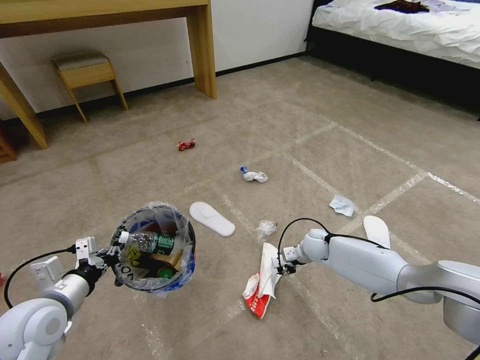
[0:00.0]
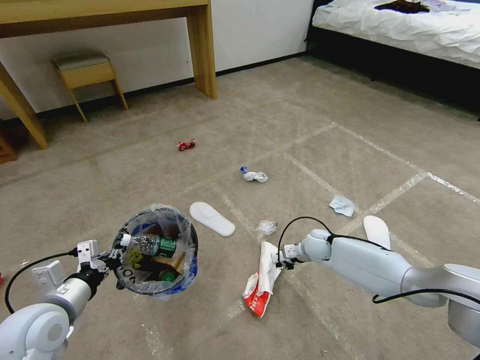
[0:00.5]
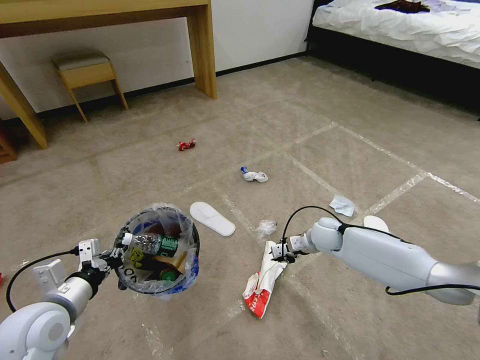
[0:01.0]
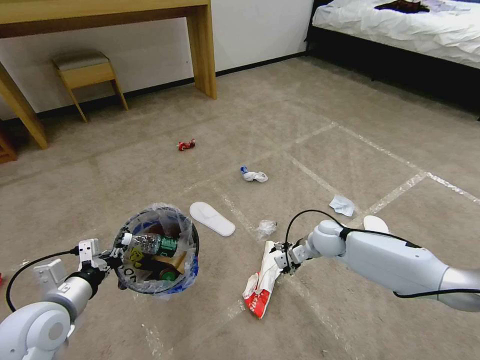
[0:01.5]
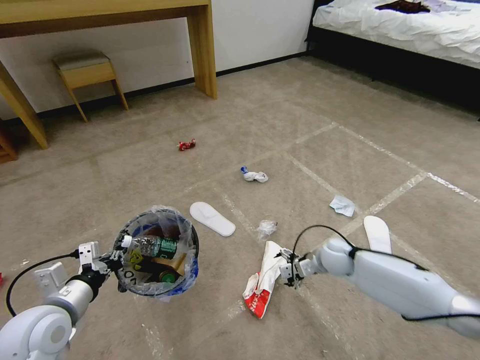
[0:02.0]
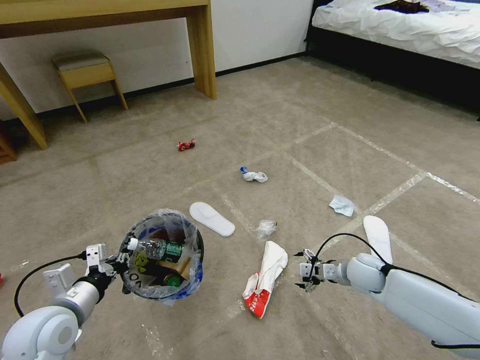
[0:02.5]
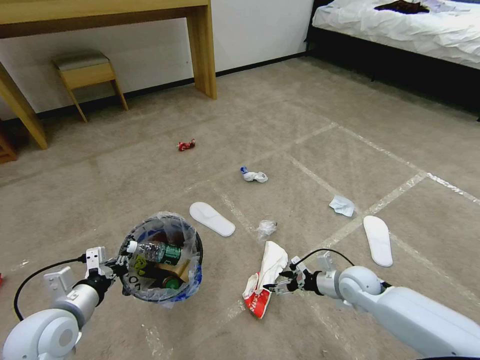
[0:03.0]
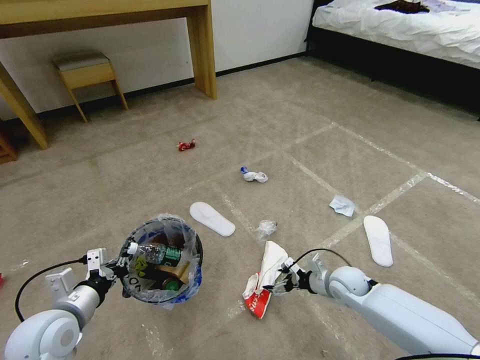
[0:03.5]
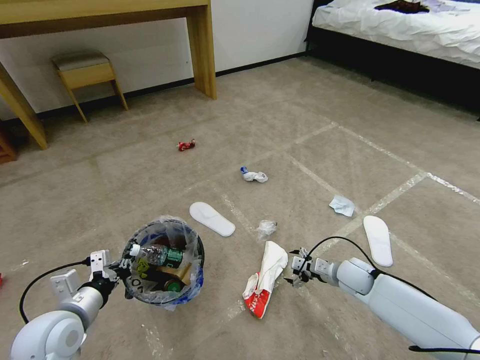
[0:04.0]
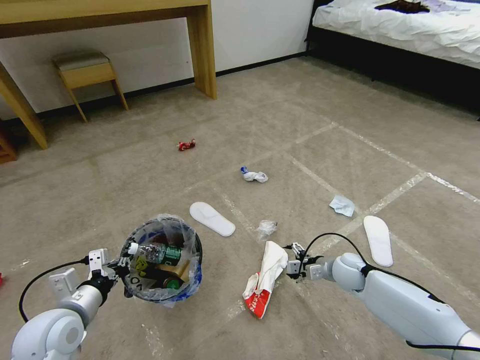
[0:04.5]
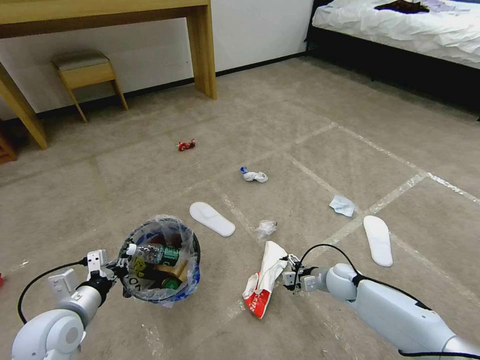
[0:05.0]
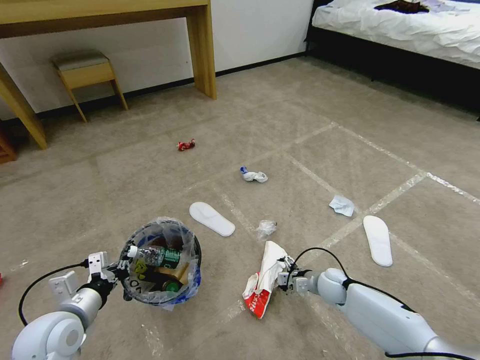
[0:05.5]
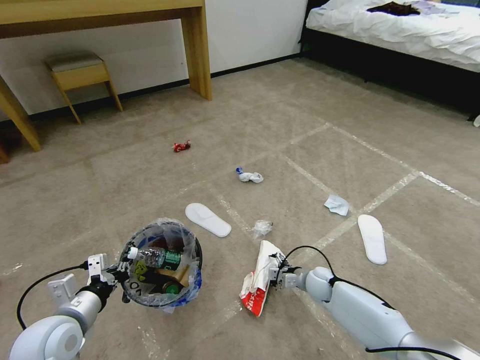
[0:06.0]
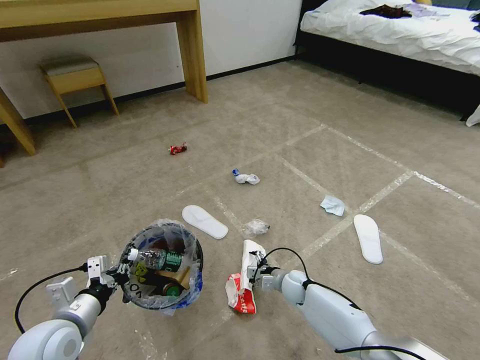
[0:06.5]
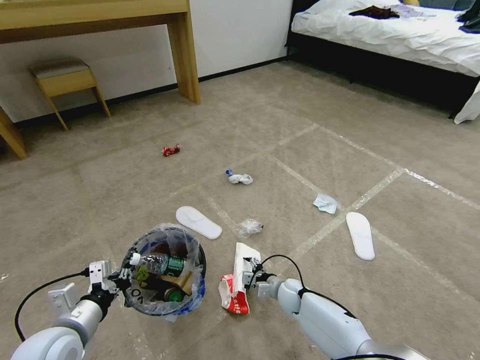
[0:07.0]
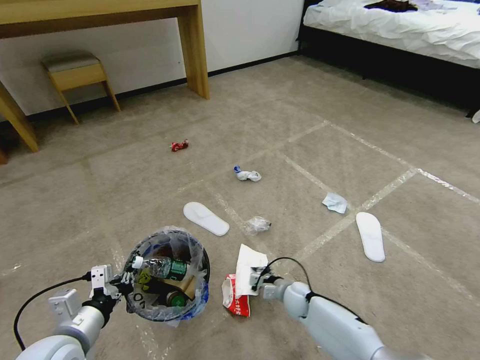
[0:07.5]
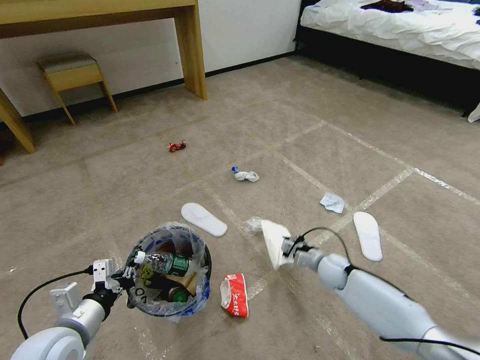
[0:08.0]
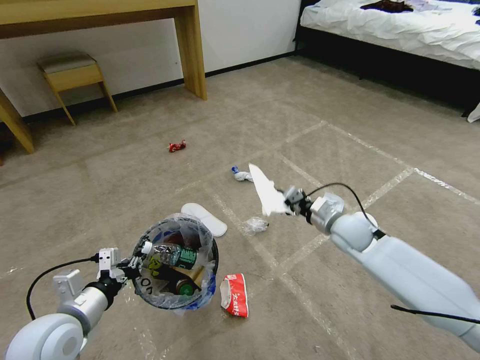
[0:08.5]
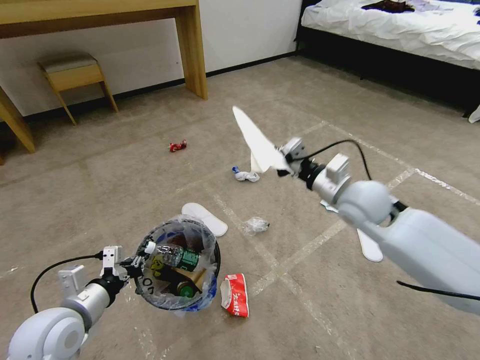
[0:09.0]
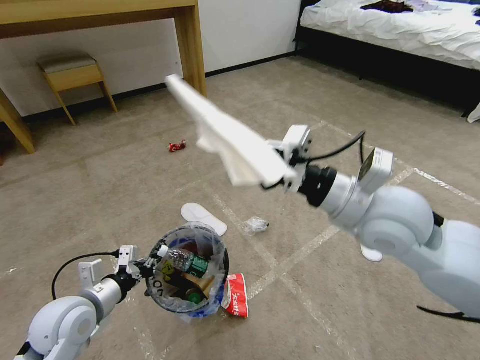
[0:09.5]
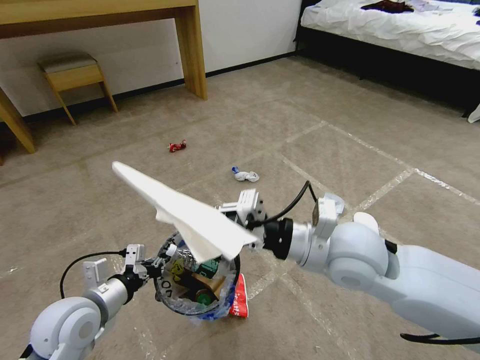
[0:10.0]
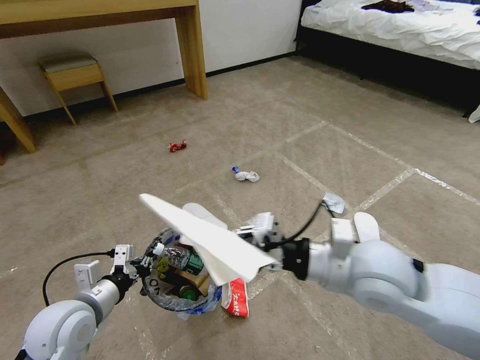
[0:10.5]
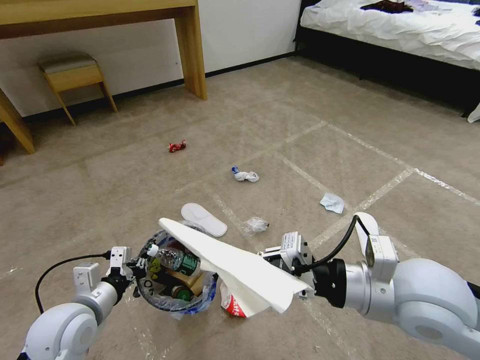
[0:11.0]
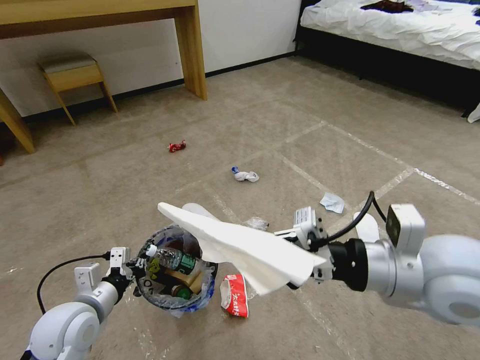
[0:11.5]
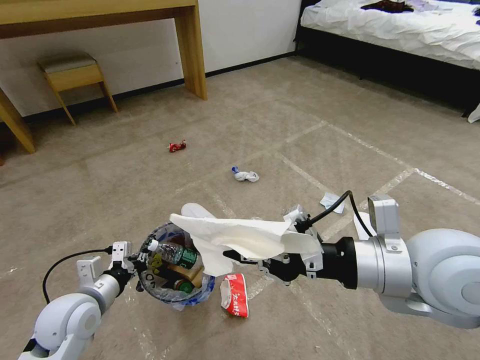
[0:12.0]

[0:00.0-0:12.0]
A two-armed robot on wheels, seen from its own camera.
Task of the whole recording: Pick up the trash bin and place the garbage on the floor into it.
0:00.0 to 0:02.0: The right gripper heads backward, covering some 5 cm, and opens up.
0:02.0 to 0:04.0: The right gripper shifts by roughly 5 cm.
0:04.0 to 0:06.0: The right gripper goes some 10 cm downward and to the left.
0:06.0 to 0:08.0: The right gripper goes to the left and returns, about 10 cm each way, and closes.
0:08.0 to 0:10.0: The right gripper moves upward, roughly 35 cm, while the left gripper changes place by some 5 cm.
0:10.0 to 0:12.0: The right gripper is displaced to the right, upward and backward by approximately 10 cm.

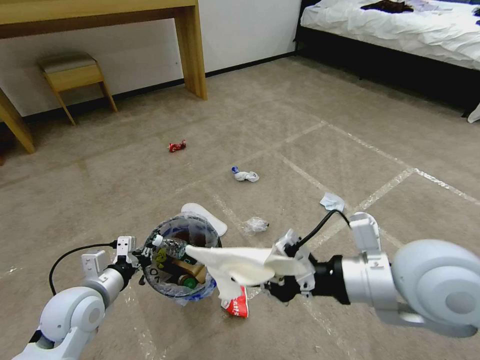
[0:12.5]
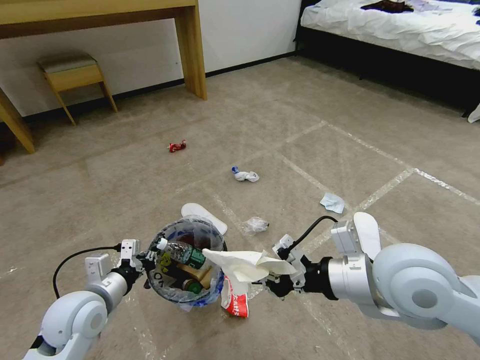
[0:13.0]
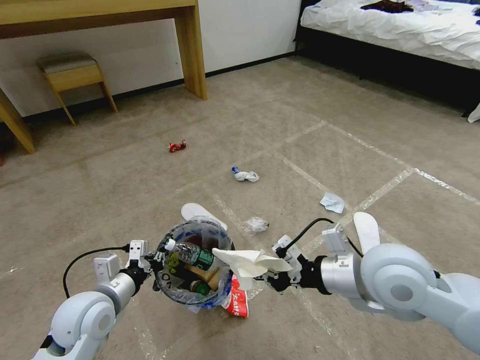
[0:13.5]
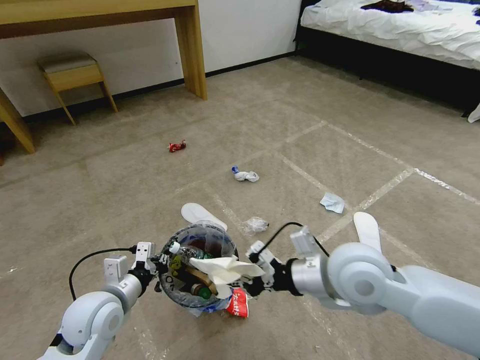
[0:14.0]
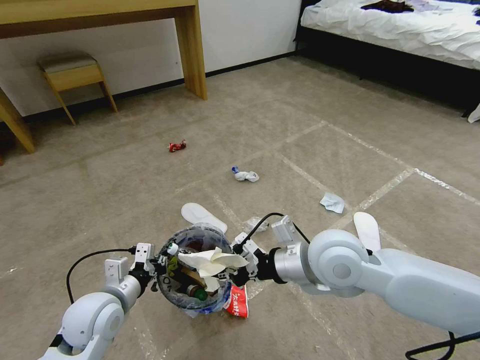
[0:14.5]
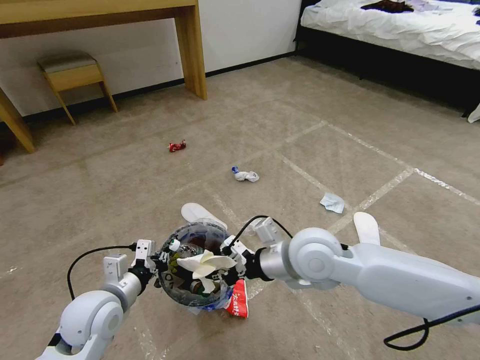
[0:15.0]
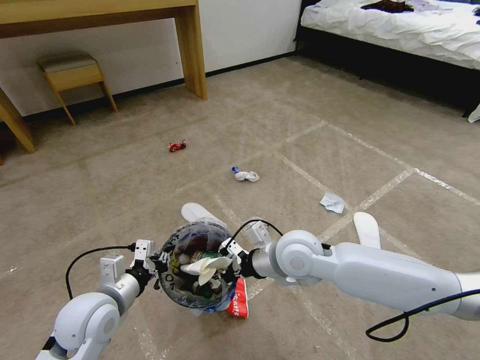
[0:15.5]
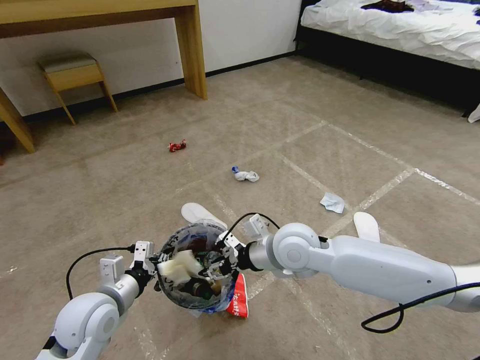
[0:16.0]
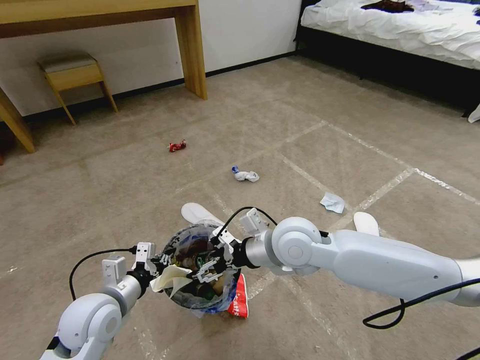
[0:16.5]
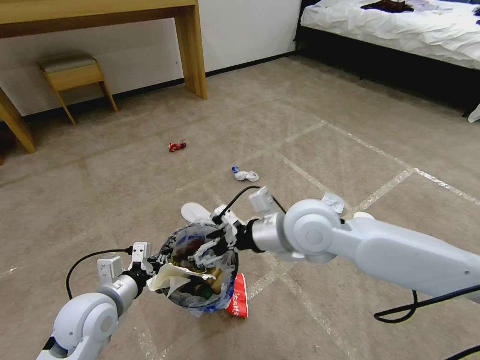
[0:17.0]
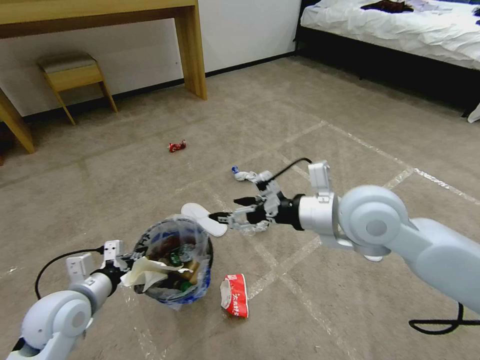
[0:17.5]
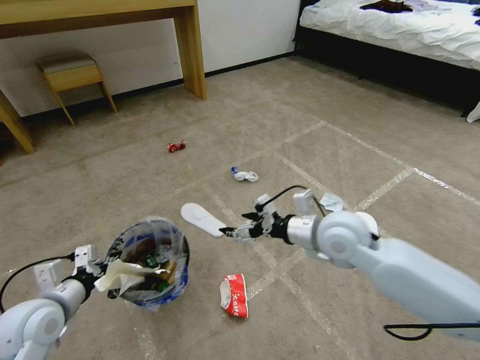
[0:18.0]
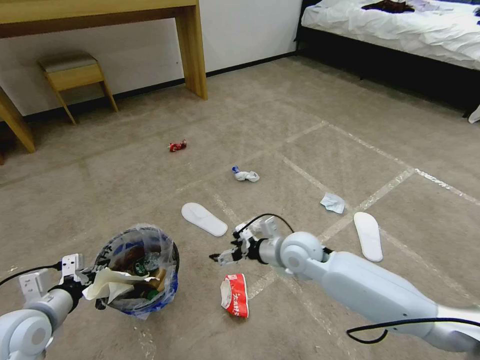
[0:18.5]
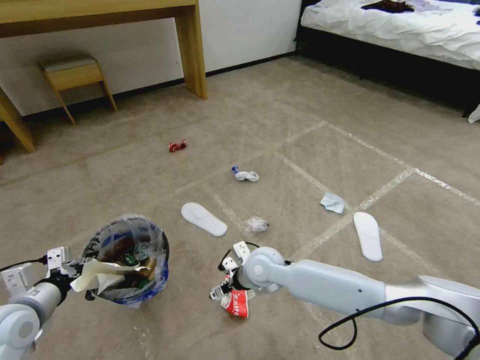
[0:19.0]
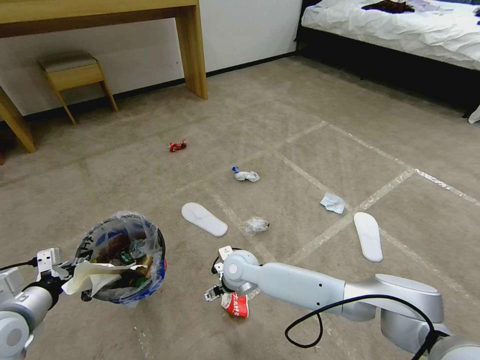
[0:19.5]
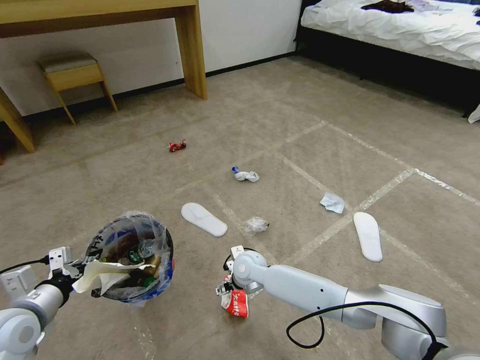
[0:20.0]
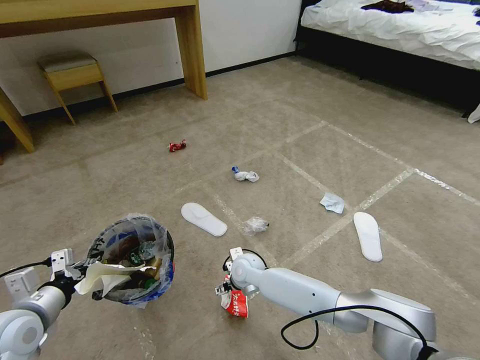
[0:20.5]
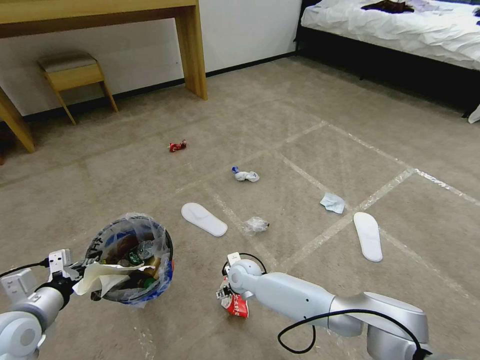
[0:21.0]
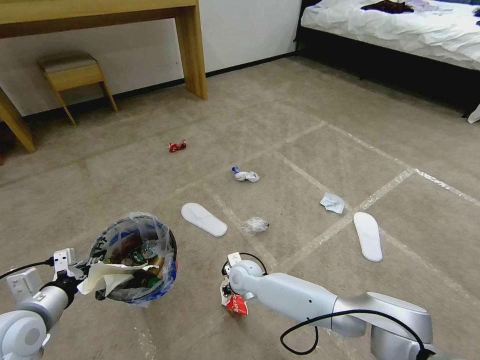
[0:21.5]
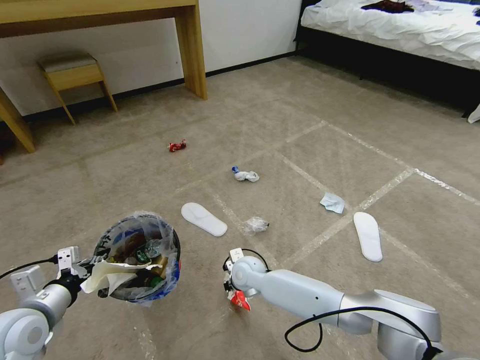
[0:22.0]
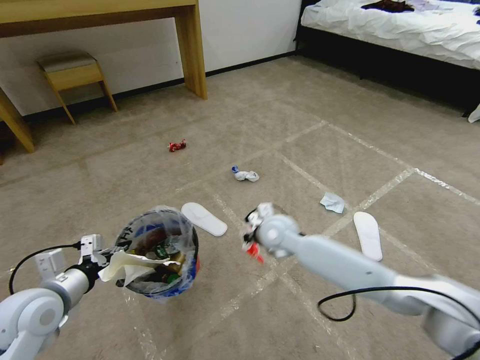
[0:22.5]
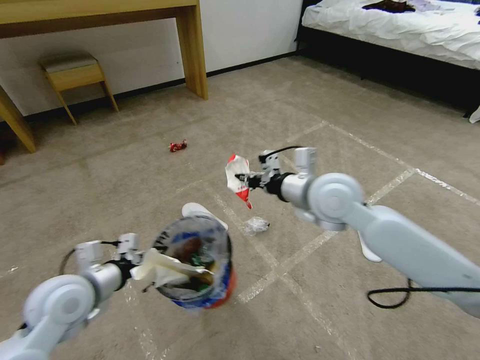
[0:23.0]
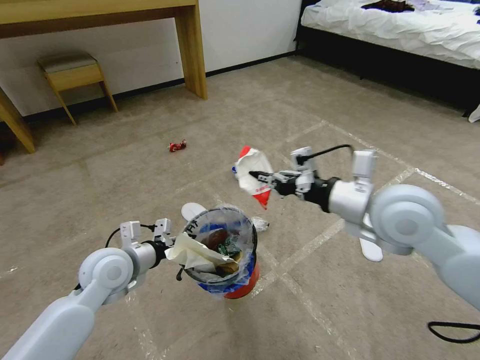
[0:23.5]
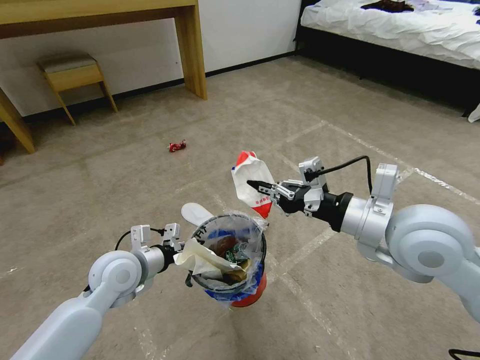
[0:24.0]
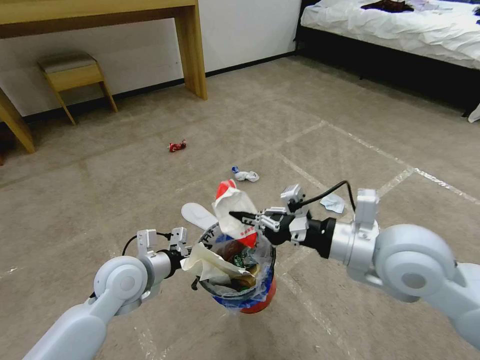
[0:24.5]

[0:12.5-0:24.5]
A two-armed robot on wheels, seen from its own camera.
Task of the whole recording: Pick up the trash bin and place the garbage on the floor into it.
0:12.5 to 0:14.5: The right gripper moves to the left, downward and forward, about 15 cm.
0:14.5 to 0:16.5: The right gripper travels to the left by roughly 5 cm, and opens up.
0:16.5 to 0:18.5: The right gripper moves downward, some 10 cm, while the left gripper goes approximately 10 cm to the left.
0:18.5 to 0:20.5: The right gripper goes about 20 cm downward and to the left.
0:20.5 to 0:22.5: The left gripper changes place by approximately 5 cm. The right gripper shifts some 15 cm upward and to the right, and closes its fingers.
0:22.5 to 0:24.5: The left gripper travels to the right and forward by some 15 cm. The right gripper is displaced backward, upward and to the right by some 30 cm.

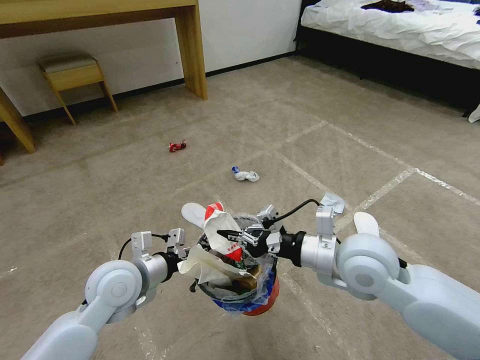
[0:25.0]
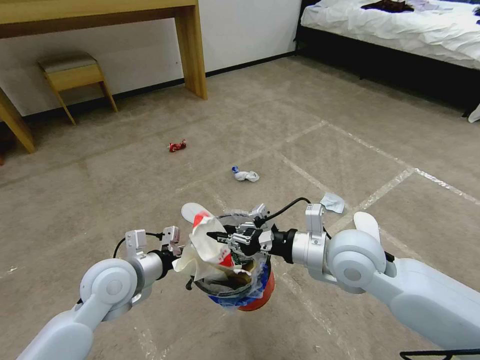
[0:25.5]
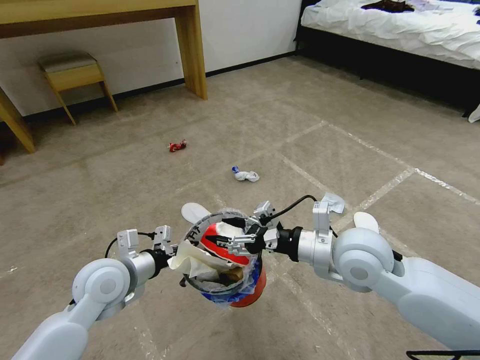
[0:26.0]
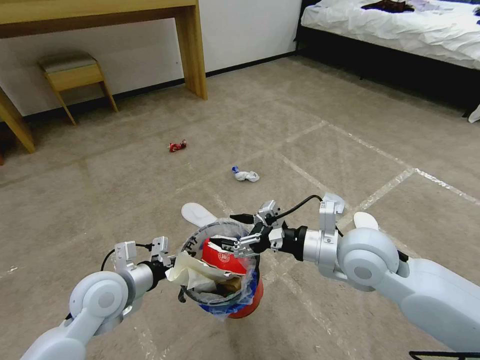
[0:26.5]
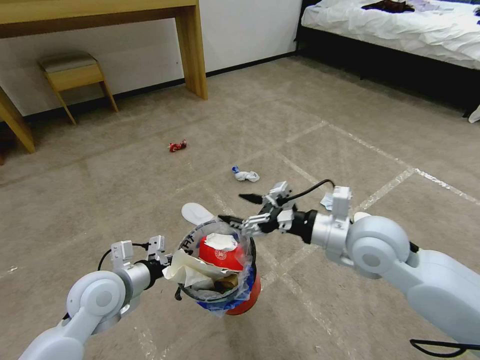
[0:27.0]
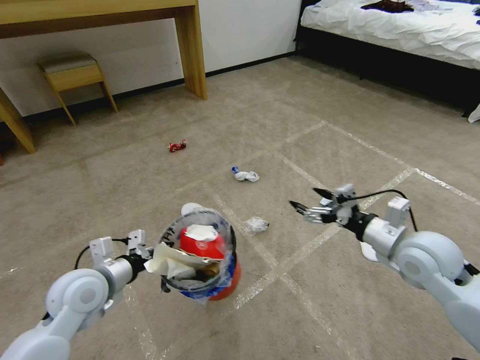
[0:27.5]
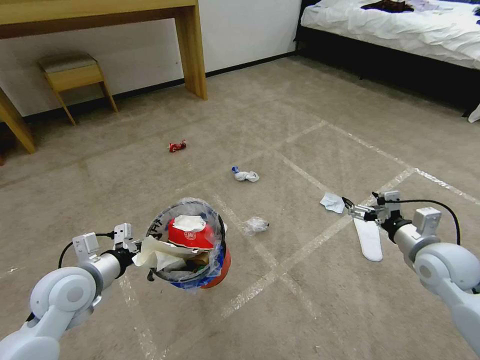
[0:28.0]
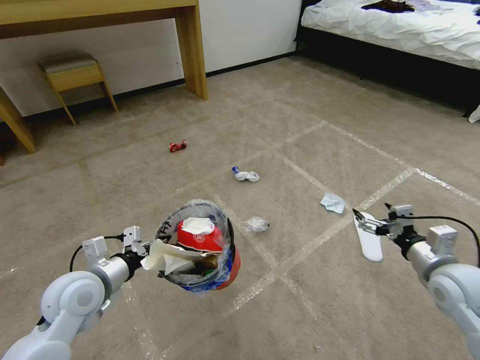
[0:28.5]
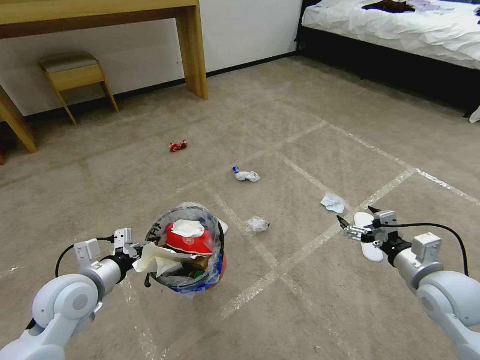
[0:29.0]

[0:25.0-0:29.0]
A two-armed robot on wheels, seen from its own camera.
Task of the whole recording: Pick up the trash bin and place the garbage on the floor into it.
0:25.0 to 0:27.0: The right gripper opens.
0:27.0 to 0:29.0: The left gripper moves to the left, roughly 5 cm, while the right gripper moves to the right and downward, roughly 20 cm.
